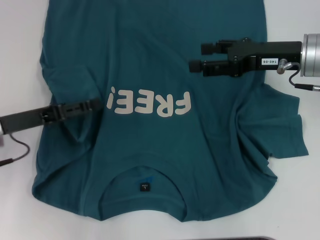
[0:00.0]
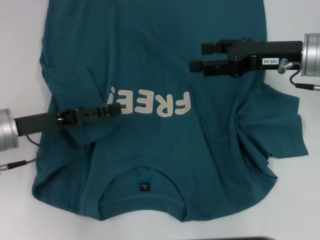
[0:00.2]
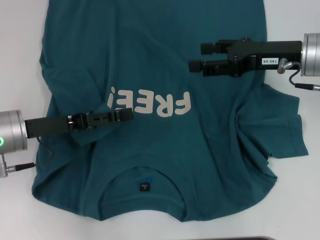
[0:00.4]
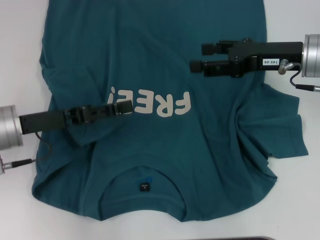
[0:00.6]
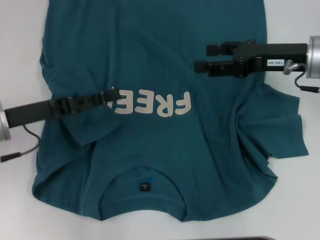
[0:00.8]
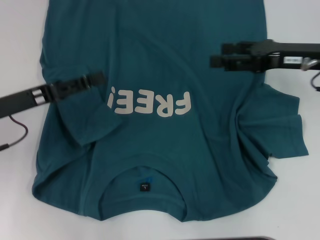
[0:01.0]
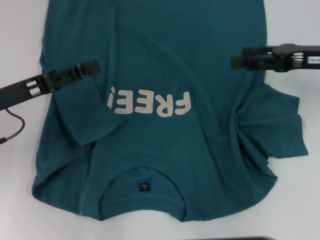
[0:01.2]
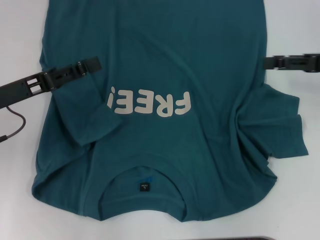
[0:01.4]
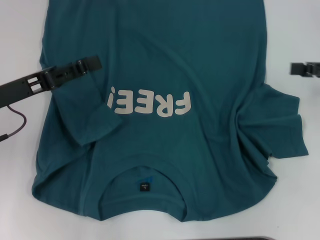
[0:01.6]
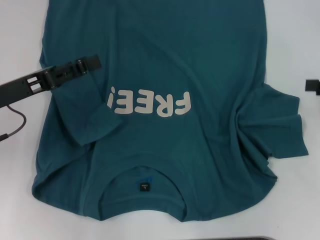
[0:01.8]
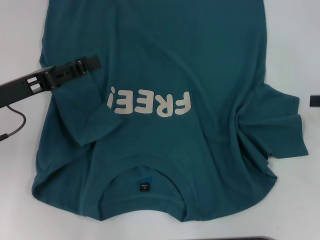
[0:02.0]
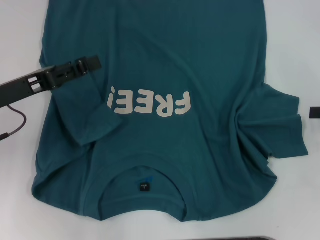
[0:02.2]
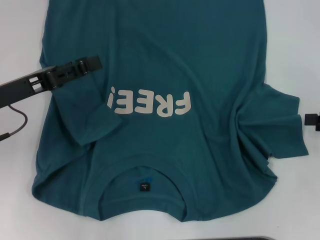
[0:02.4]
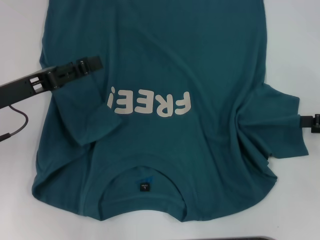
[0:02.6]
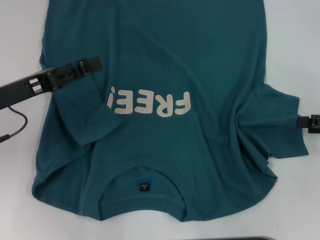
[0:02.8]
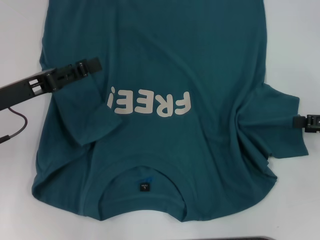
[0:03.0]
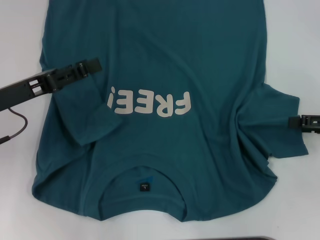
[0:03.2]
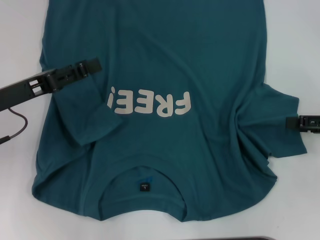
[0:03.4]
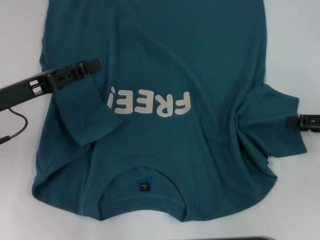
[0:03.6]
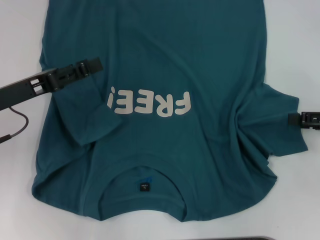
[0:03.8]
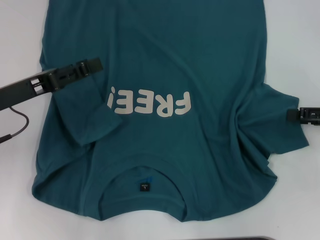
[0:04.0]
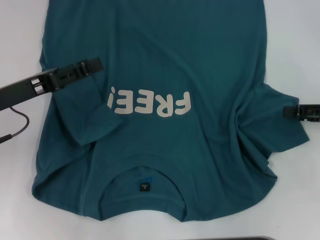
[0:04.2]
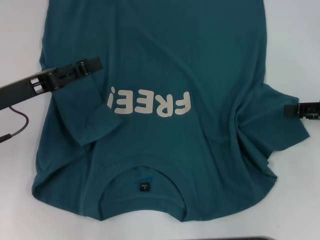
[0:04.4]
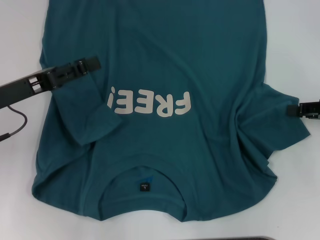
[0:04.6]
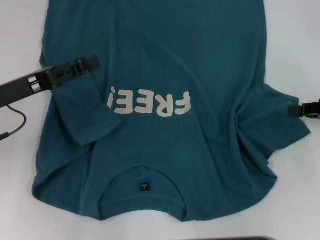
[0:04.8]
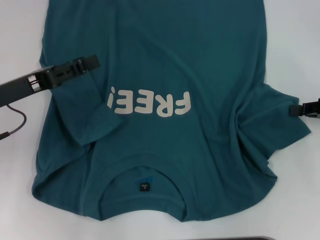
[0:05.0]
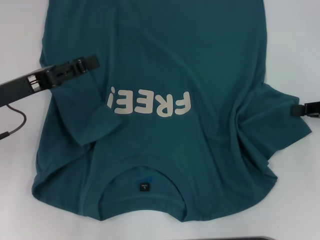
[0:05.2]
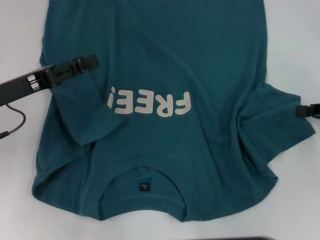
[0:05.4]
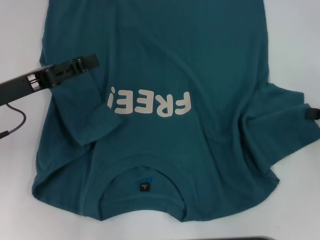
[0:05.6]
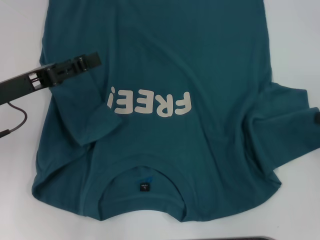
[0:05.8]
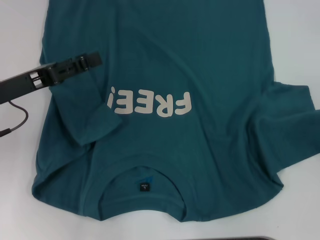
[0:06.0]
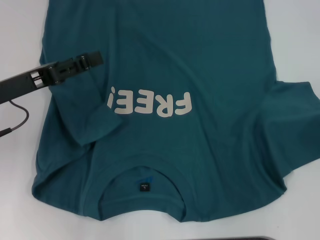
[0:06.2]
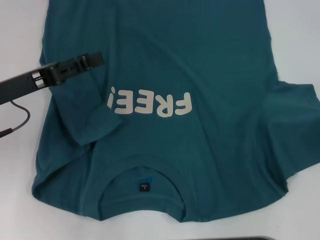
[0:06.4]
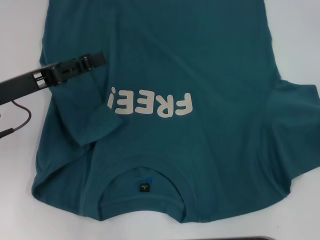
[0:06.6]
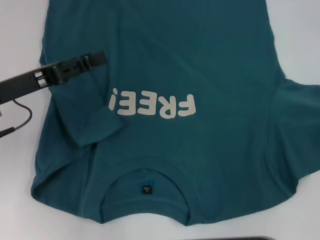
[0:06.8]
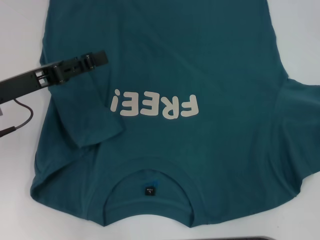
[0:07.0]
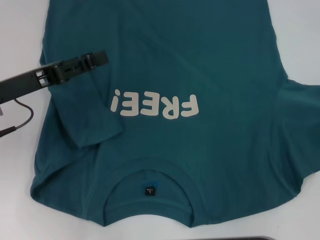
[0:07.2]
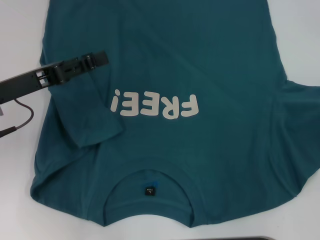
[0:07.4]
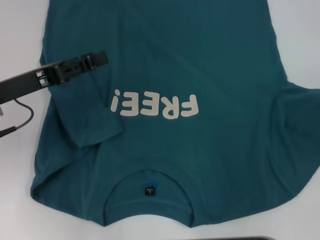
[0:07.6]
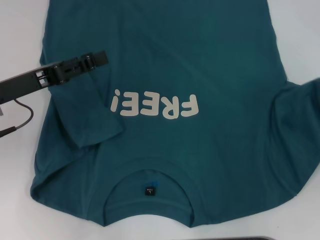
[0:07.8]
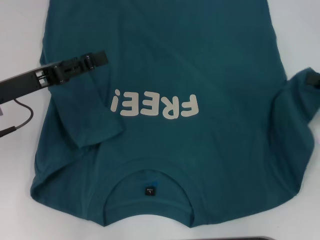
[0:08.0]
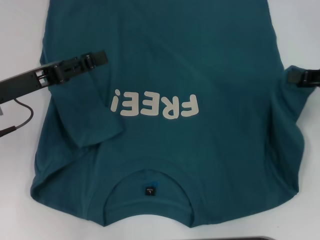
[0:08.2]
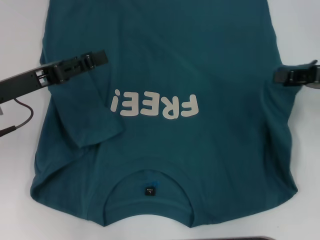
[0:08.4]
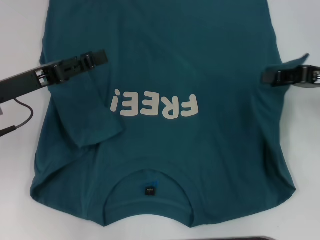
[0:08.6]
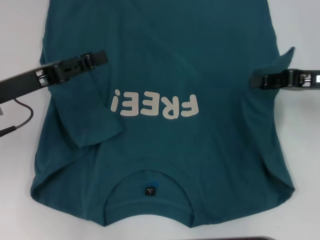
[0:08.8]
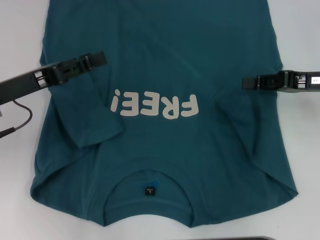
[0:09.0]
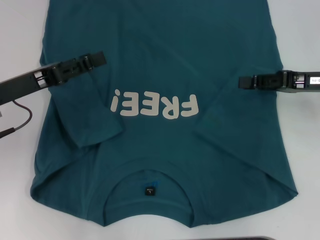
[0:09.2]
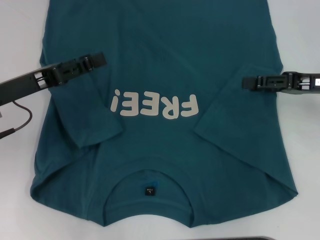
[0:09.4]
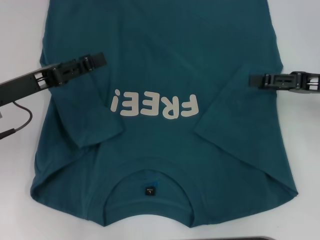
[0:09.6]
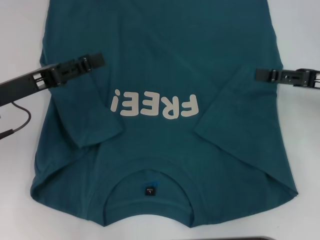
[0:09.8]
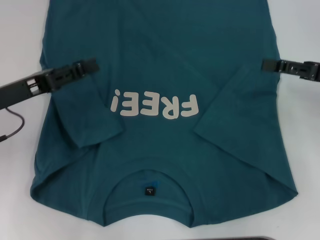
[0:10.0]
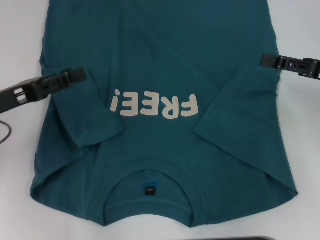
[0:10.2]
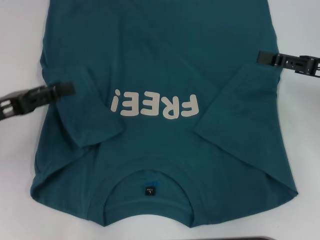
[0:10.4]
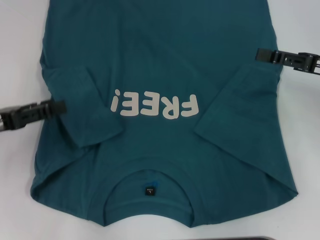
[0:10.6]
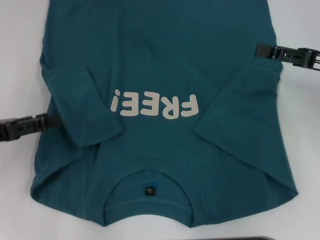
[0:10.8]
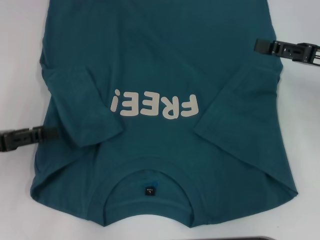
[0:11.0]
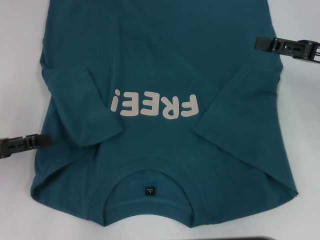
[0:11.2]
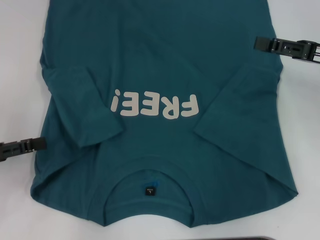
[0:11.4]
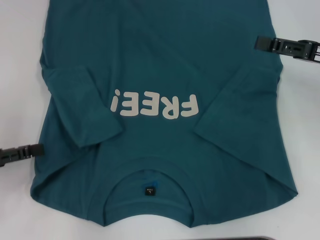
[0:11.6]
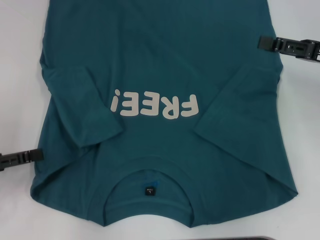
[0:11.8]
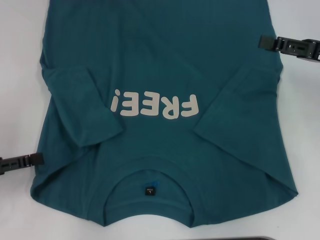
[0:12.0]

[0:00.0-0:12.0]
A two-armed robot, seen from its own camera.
Step, 0:00.6 to 0:09.4: Fold the bottom right sleeve to the right.
0:00.0 to 0:01.6: The right gripper heads to the right, covering approximately 15 cm.
0:01.6 to 0:03.0: The right gripper shifts by about 5 cm.
0:03.0 to 0:04.4: There are only small adjustments of the grippers.
0:04.4 to 0:06.0: The right gripper shifts by roughly 5 cm, and closes.
0:06.0 to 0:07.6: The grippers make only small movements.
0:07.6 to 0:09.0: The right gripper goes roughly 15 cm to the left and forward.
0:09.0 to 0:10.4: The right gripper opens, while the left gripper changes place by about 5 cm.
0:10.4 to 0:12.0: The left gripper heads to the left, covering roughly 5 cm.

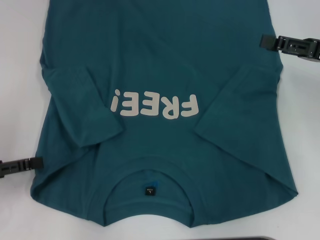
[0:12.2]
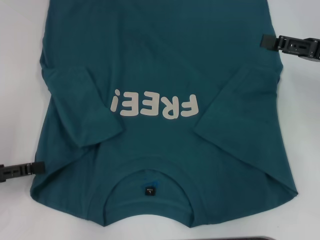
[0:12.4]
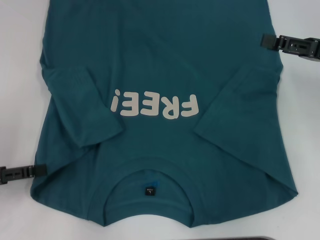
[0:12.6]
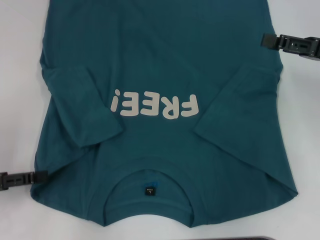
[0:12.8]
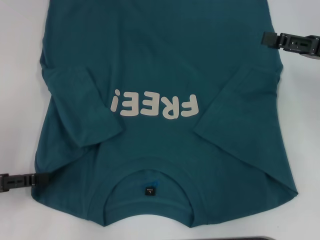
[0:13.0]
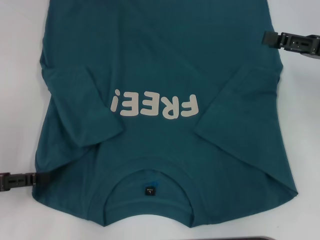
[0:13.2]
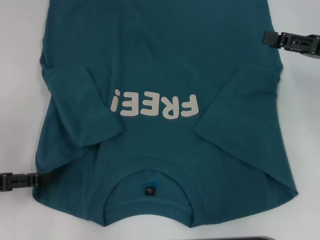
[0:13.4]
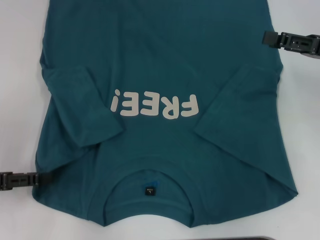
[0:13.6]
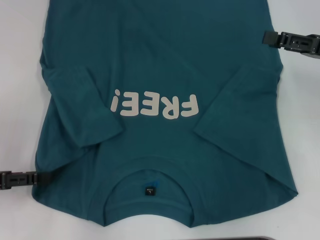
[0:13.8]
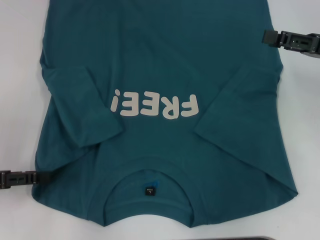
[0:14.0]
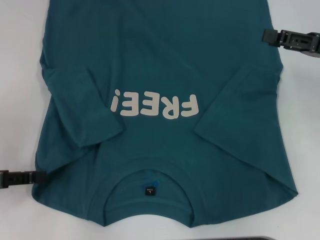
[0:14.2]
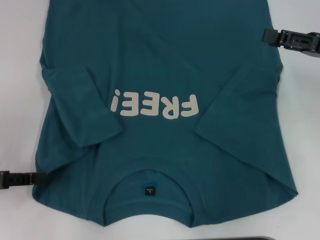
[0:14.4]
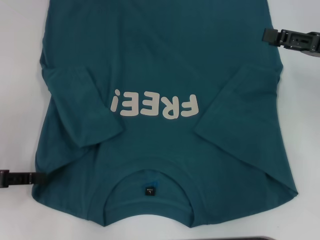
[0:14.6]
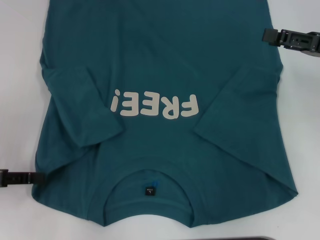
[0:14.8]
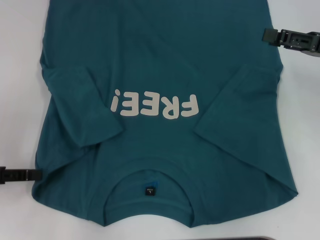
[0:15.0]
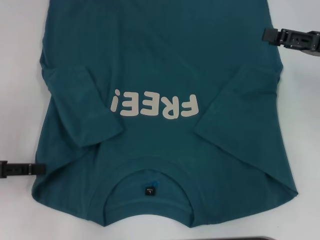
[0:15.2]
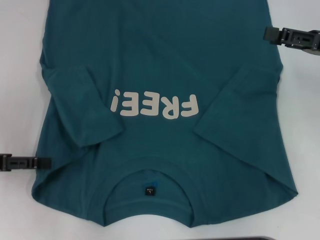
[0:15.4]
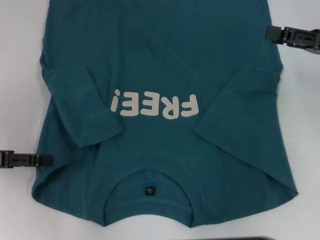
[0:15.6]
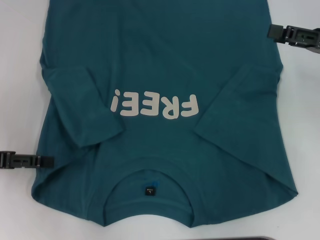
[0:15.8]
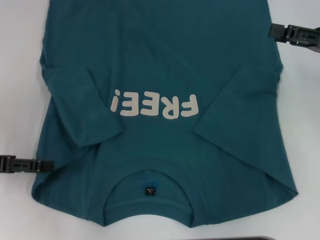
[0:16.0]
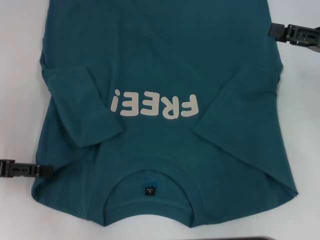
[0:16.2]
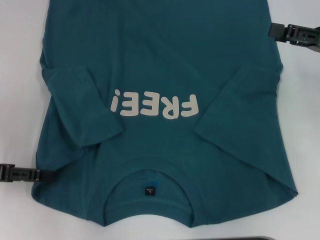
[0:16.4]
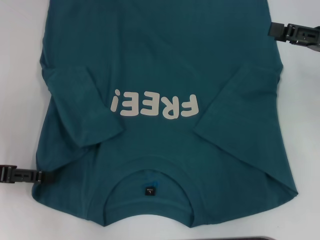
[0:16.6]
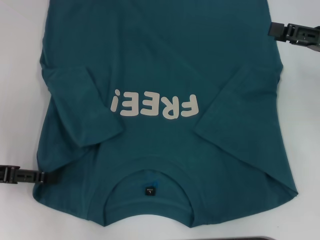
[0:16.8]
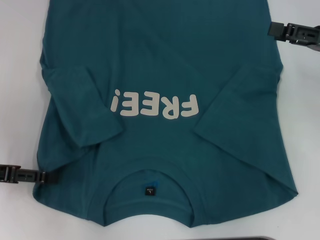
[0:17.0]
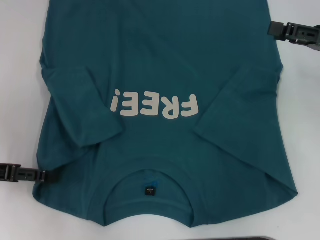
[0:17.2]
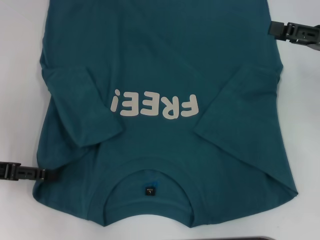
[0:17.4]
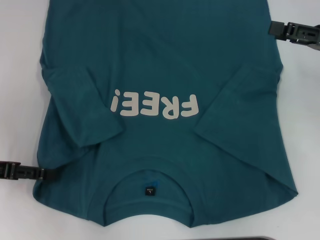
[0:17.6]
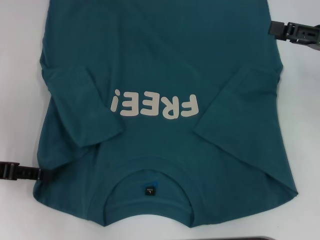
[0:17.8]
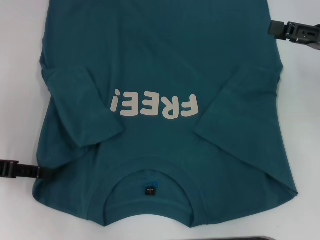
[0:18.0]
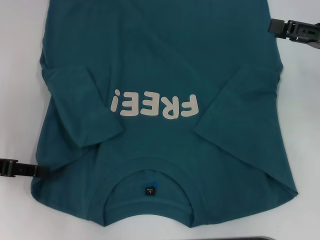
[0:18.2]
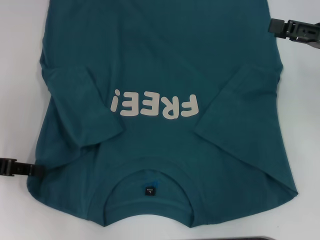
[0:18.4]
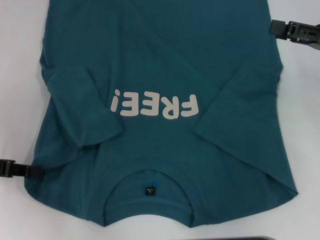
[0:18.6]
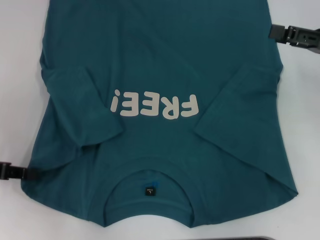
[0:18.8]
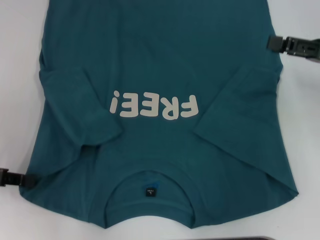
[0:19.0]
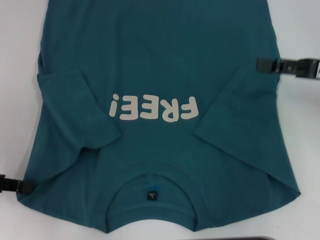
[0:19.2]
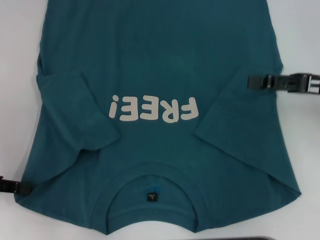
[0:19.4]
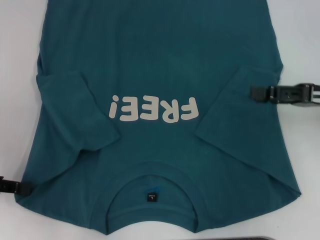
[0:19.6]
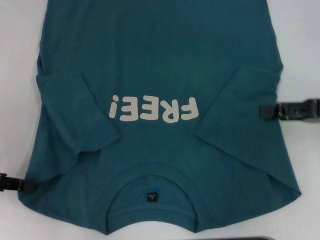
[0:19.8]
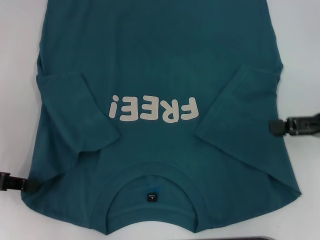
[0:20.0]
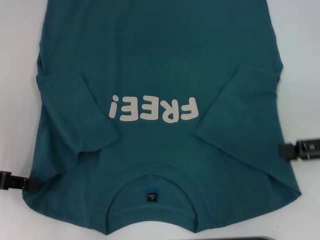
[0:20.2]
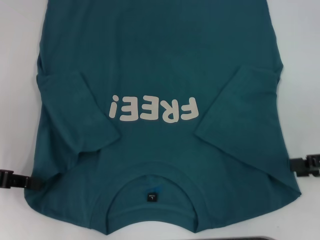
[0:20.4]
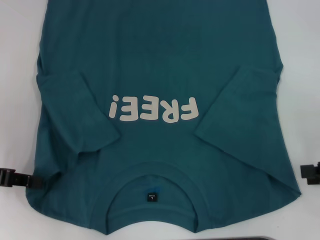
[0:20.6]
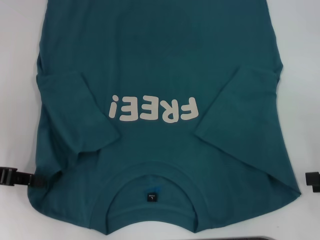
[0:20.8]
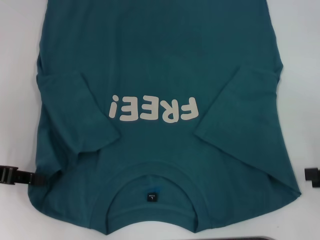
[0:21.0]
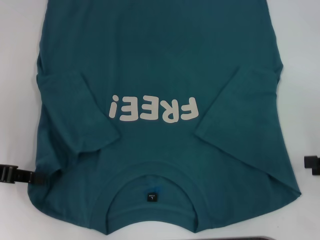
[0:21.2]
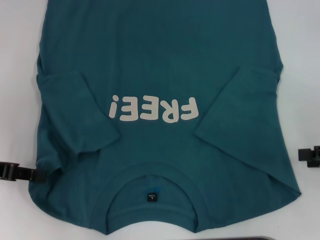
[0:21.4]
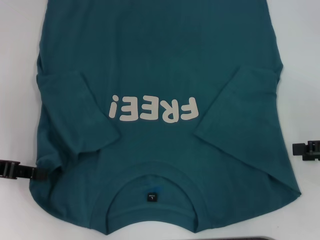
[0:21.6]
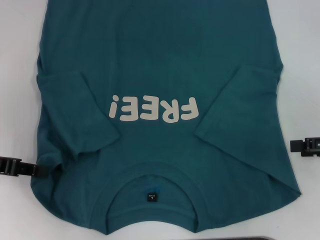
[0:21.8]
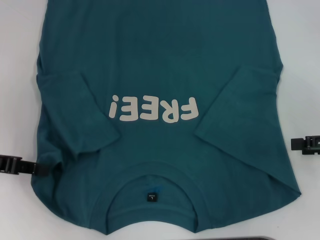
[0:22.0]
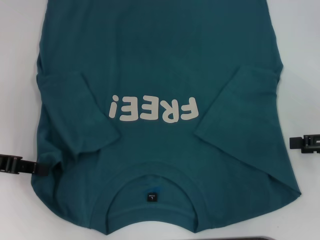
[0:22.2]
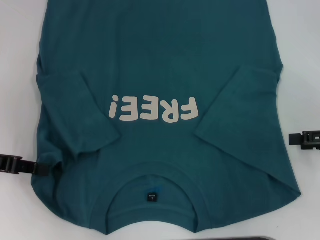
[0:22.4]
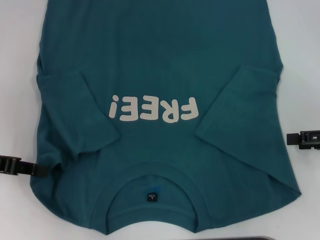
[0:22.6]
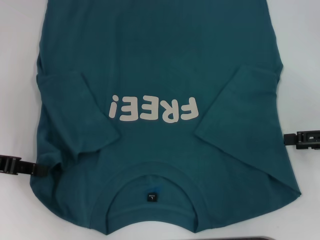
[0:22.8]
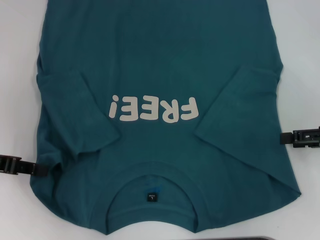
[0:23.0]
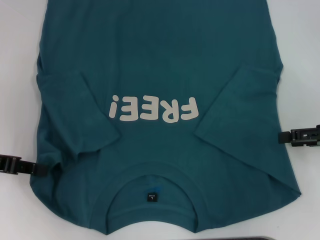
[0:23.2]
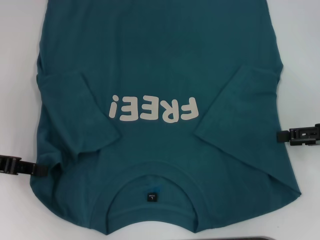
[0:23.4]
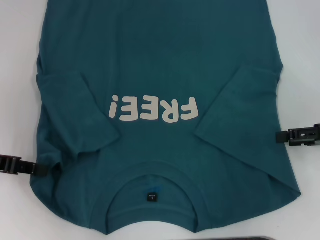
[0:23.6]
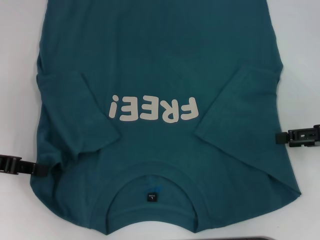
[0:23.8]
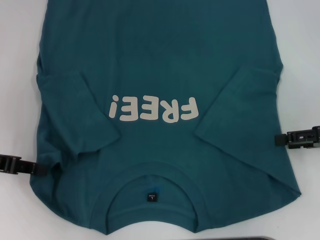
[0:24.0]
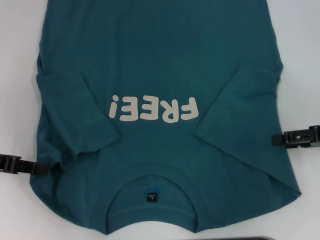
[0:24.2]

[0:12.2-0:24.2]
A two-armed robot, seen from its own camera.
Step, 0:12.2 to 0:19.0: Grab the bottom left corner with your left hand.
0:12.2 to 0:15.2: There are only small adjustments of the grippers.
0:15.2 to 0:16.6: The left gripper opens.
0:16.6 to 0:18.2: The left gripper closes up.
0:18.2 to 0:19.8: The right gripper heads backward, covering approximately 5 cm; the left gripper closes its fingers.
0:19.8 to 0:21.2: The right gripper heads backward and to the right, covering roughly 10 cm.
0:21.2 to 0:22.6: The grippers move only a little.
0:22.6 to 0:24.2: The grippers make only small movements.
